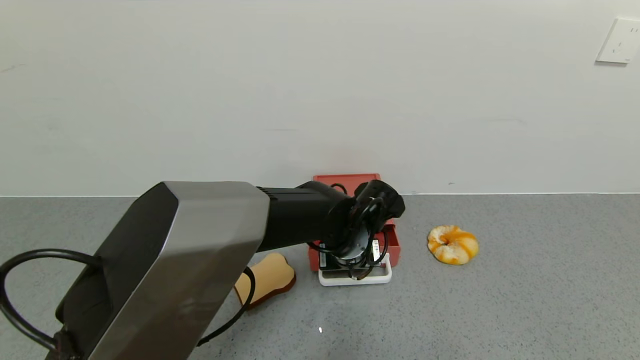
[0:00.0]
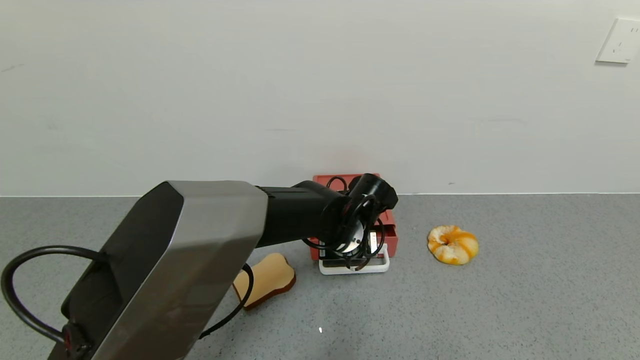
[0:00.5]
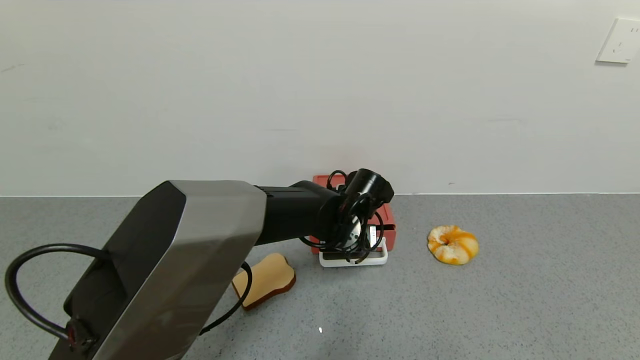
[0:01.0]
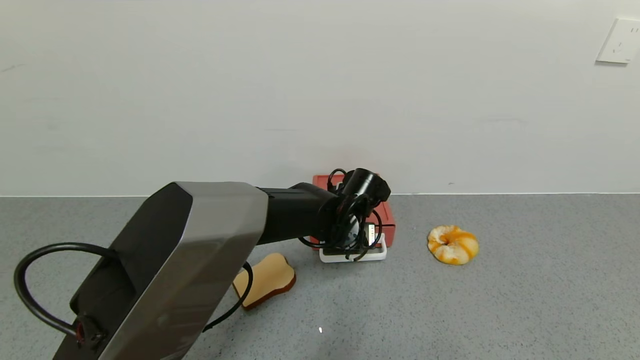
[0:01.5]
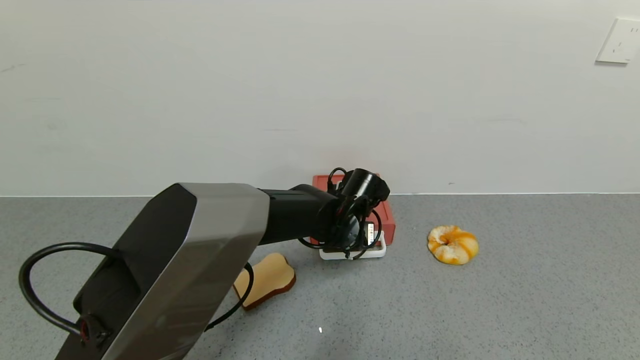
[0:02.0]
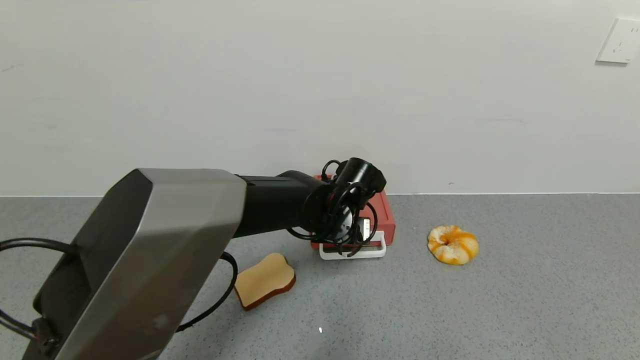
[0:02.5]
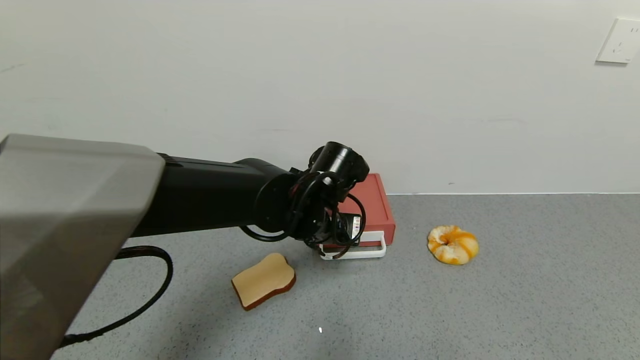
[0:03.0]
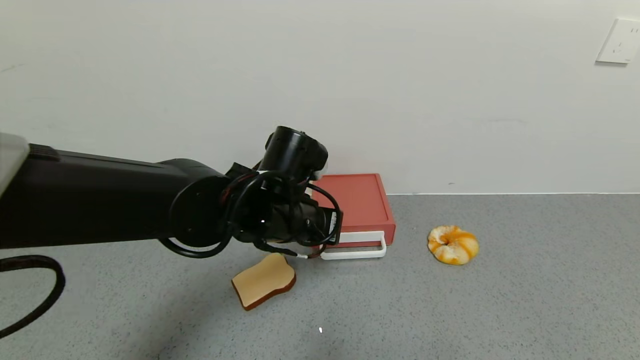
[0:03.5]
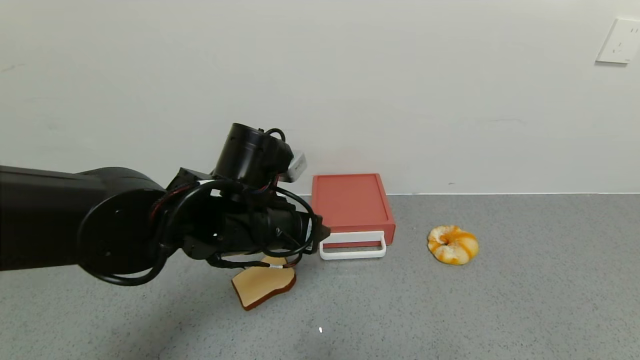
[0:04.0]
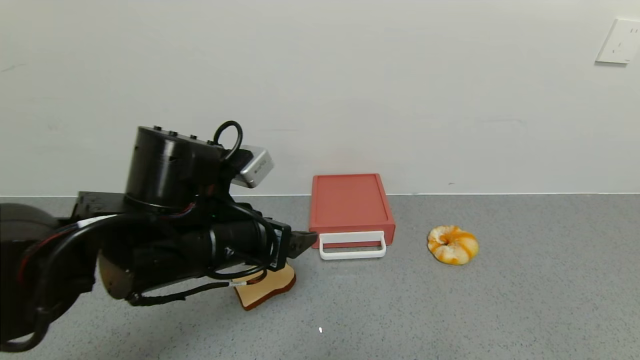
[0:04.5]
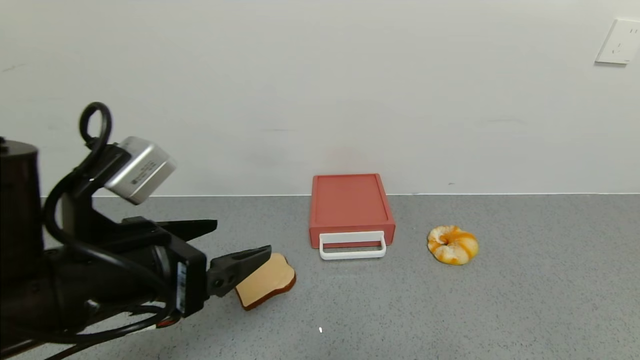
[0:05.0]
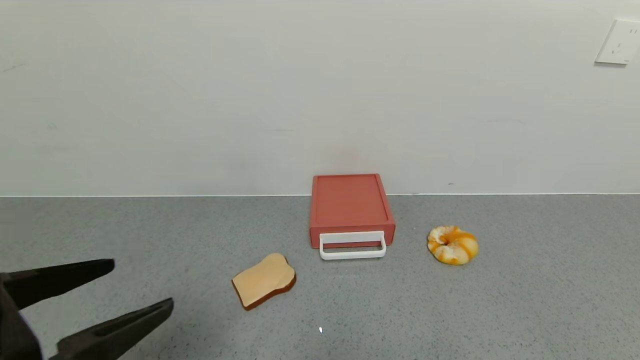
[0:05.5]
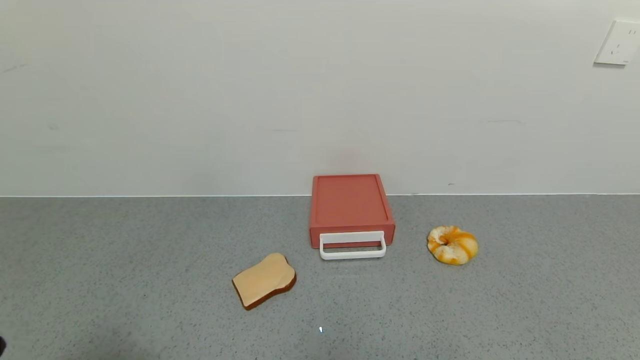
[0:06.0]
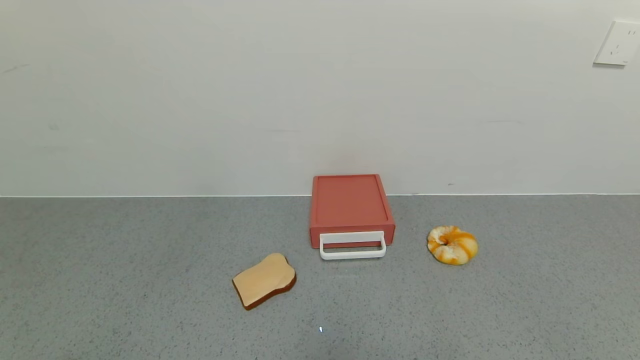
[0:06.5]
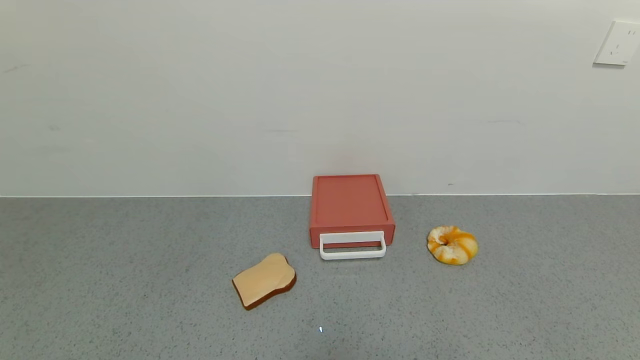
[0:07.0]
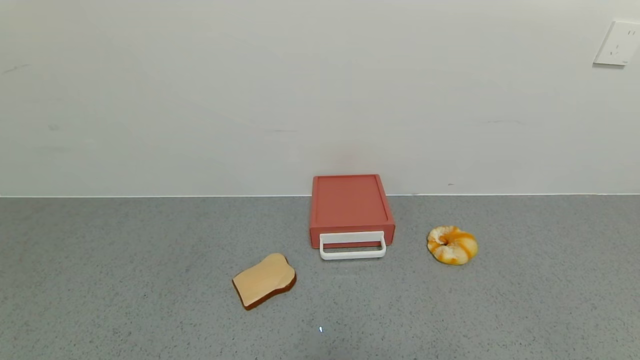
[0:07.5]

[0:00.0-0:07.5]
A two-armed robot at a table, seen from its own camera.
Task of the whole recording: use the gripper to open the drawer and close the red drawer.
Step, 0:00.0 to 0:02.5: Close the red drawer with the left gripper.
0:00.0 to 0:02.0: The grippers make only small movements.
0:02.0 to 0:04.0: The left gripper shifts roughly 20 cm backward, to the left and upward, and opens its fingers.
0:04.0 to 0:05.5: The left gripper is displaced backward and to the left by approximately 25 cm.
0:05.5 to 0:07.5: The left gripper heads backward and downward, covering about 15 cm.
